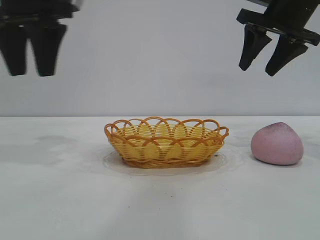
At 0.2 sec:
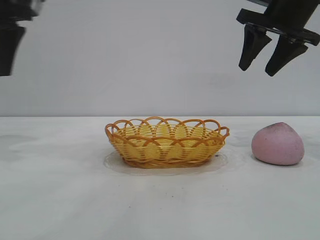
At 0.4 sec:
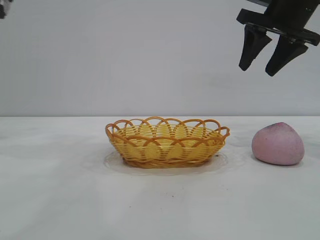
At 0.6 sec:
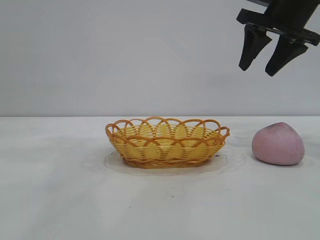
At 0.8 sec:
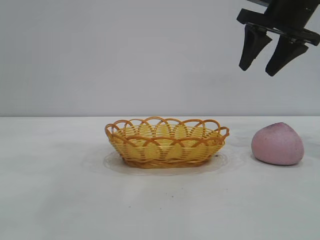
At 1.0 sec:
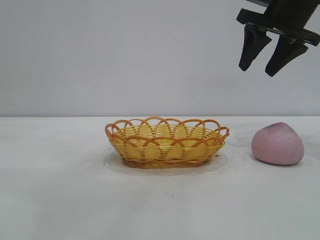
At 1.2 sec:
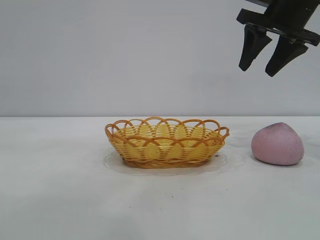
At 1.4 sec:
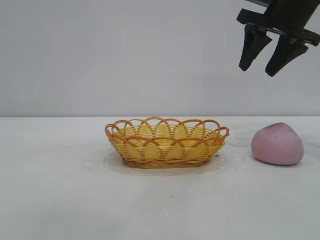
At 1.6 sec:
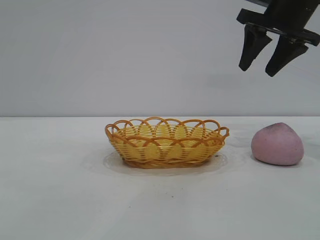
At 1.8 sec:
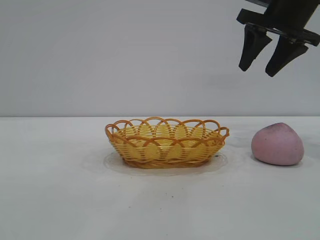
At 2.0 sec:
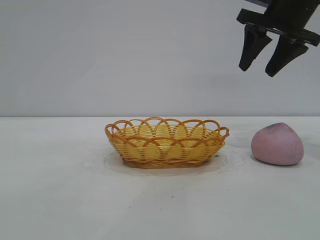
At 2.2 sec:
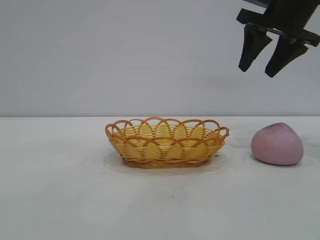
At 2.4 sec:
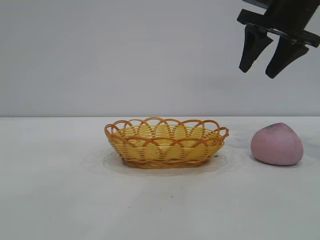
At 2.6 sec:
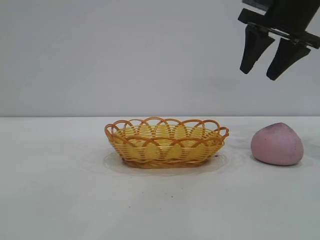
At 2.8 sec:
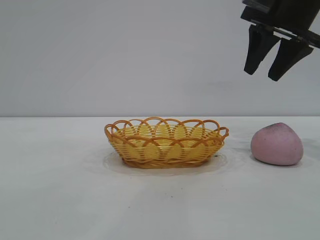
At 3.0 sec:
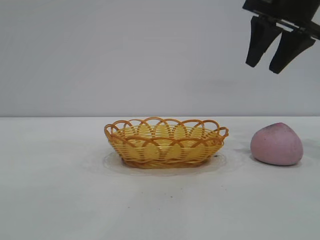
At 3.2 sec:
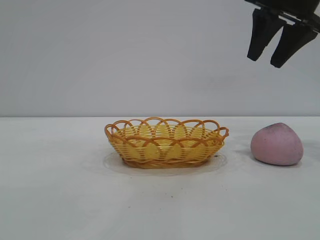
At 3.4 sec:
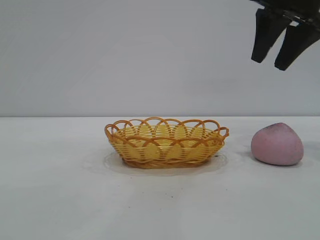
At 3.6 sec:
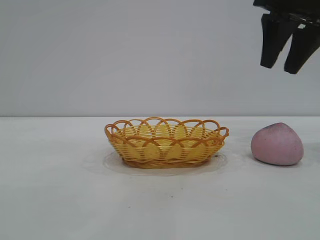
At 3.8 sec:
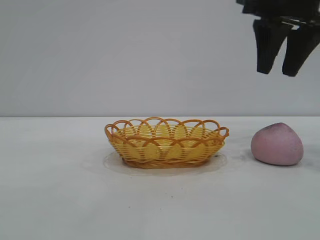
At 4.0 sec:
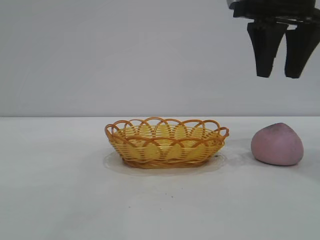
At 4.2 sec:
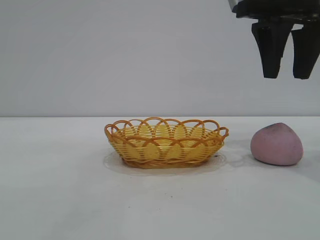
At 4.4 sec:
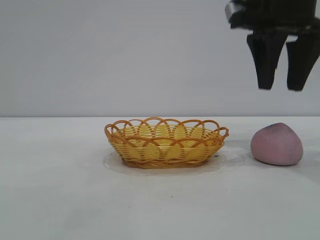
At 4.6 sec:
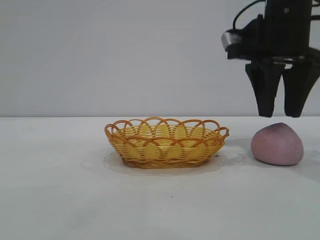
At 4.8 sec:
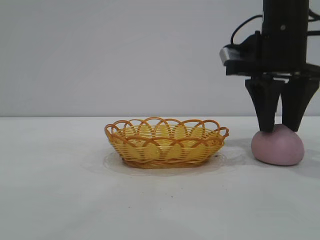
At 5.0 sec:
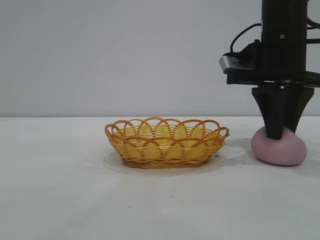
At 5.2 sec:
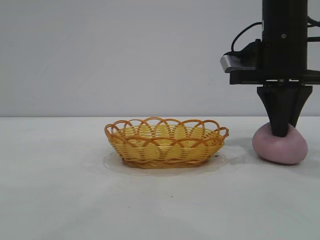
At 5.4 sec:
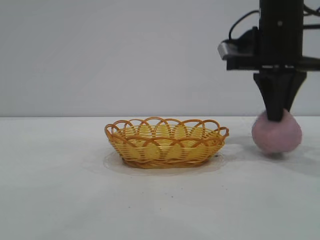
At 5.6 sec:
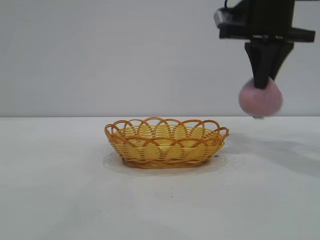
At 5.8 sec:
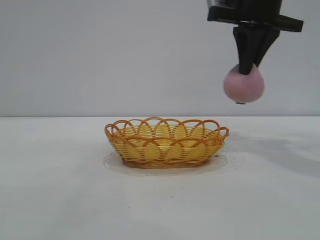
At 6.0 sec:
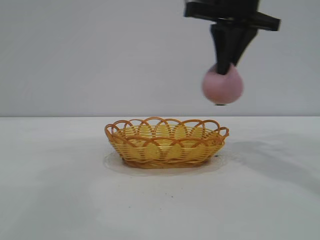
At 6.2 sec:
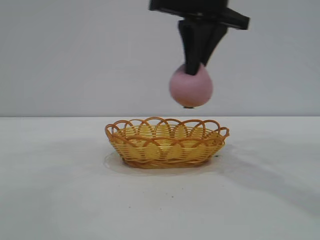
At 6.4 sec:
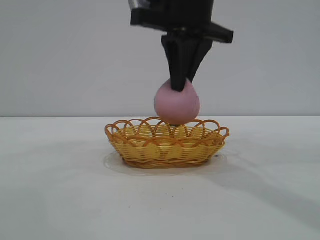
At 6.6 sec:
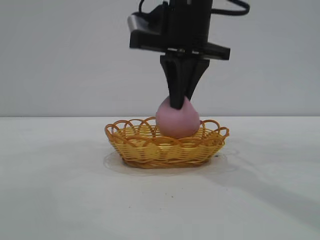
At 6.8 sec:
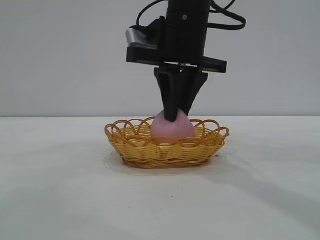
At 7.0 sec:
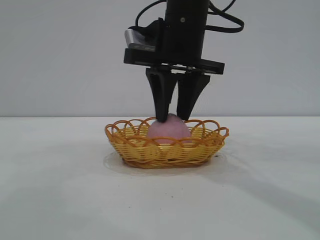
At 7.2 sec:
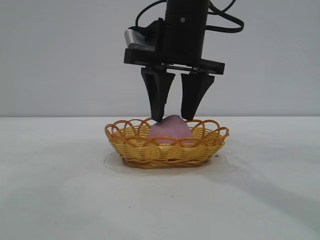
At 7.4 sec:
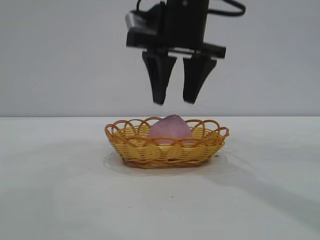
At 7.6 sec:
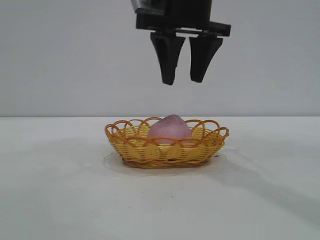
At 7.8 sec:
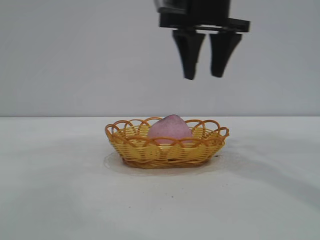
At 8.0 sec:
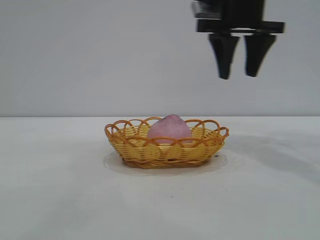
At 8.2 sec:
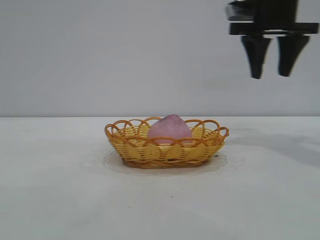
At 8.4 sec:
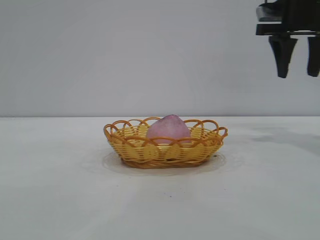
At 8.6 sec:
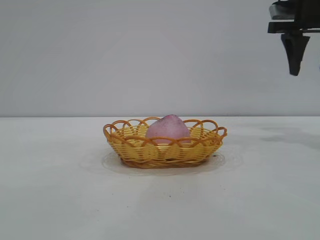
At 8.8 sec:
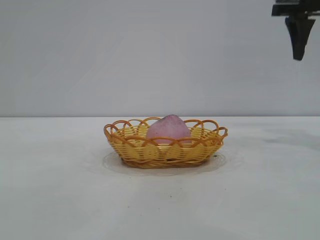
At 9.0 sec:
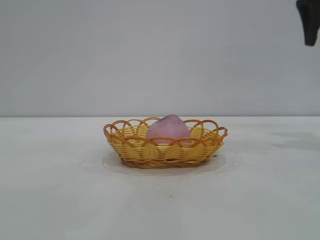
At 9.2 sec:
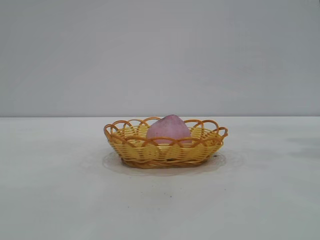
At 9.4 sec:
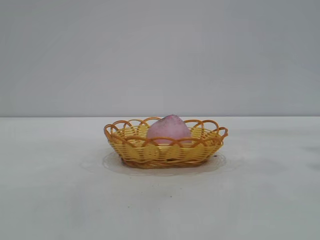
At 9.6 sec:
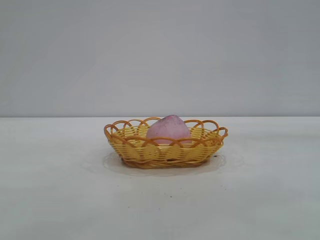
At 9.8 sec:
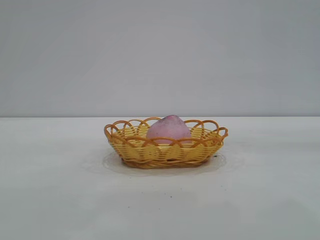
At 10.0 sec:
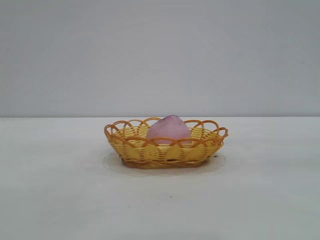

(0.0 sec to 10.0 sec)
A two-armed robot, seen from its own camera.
Task of the whole recording: pick up the peach and put it into the basket.
Step, 0.0 sec - 5.4 sec: Pick up the peach.
Step, 5.6 sec - 7.4 sec: place the peach into the basket.

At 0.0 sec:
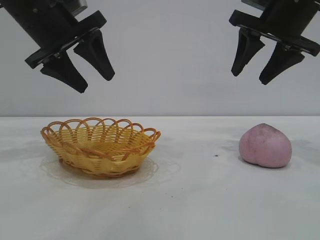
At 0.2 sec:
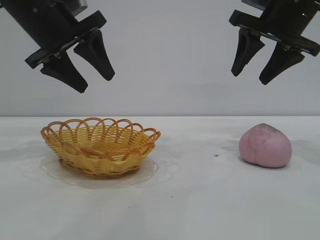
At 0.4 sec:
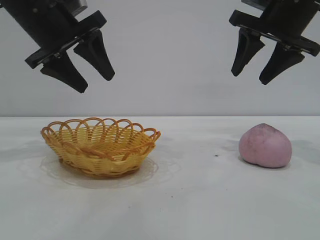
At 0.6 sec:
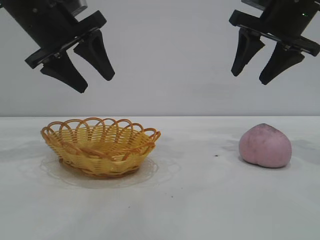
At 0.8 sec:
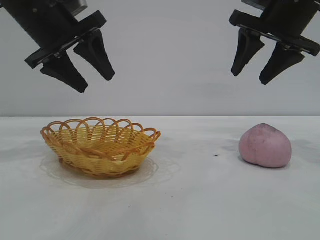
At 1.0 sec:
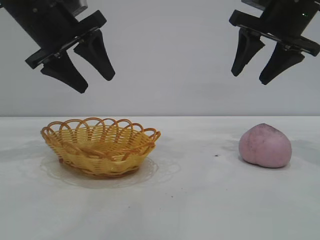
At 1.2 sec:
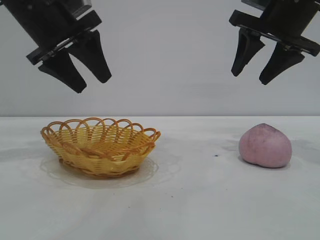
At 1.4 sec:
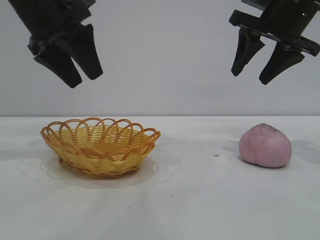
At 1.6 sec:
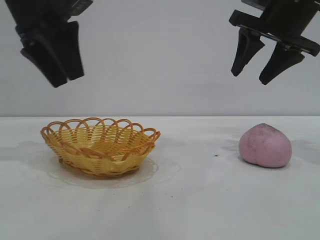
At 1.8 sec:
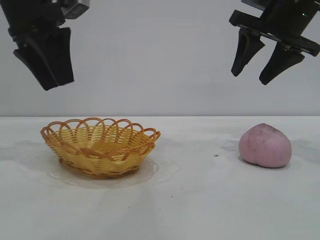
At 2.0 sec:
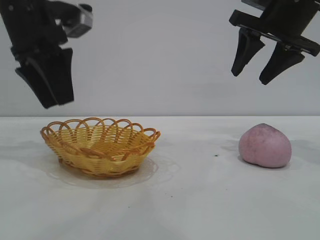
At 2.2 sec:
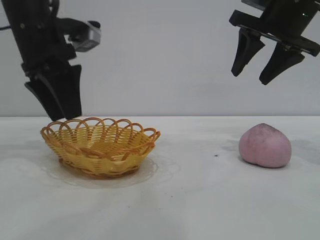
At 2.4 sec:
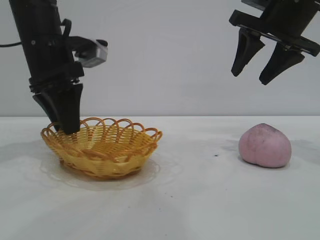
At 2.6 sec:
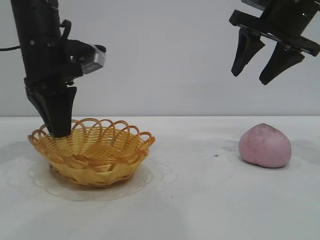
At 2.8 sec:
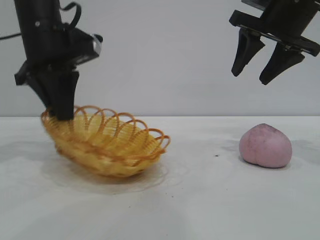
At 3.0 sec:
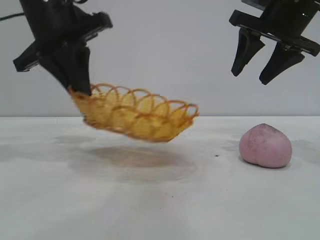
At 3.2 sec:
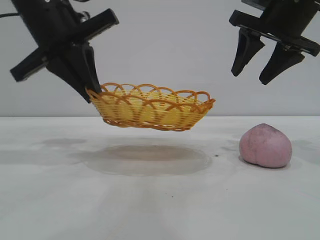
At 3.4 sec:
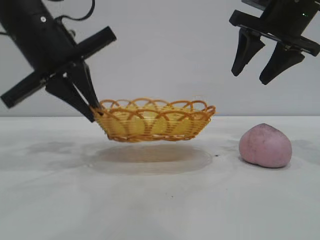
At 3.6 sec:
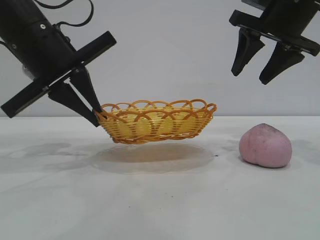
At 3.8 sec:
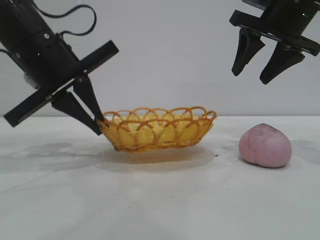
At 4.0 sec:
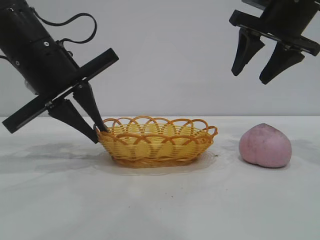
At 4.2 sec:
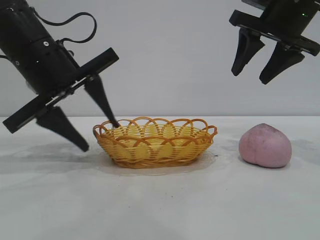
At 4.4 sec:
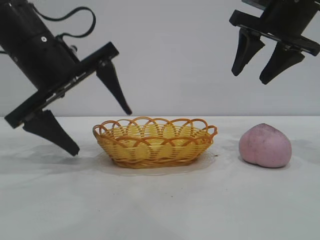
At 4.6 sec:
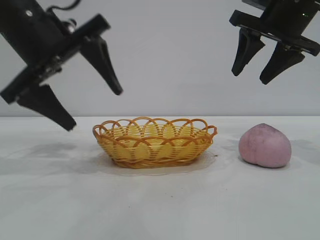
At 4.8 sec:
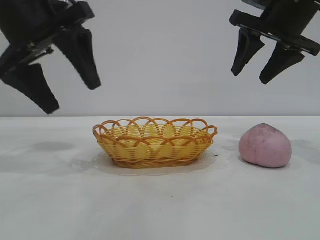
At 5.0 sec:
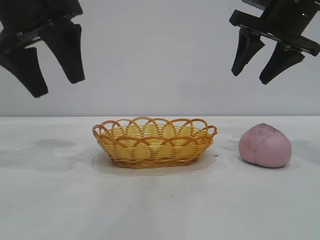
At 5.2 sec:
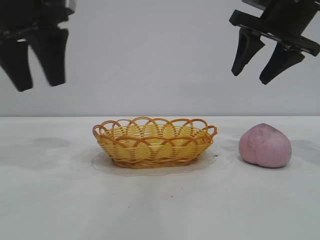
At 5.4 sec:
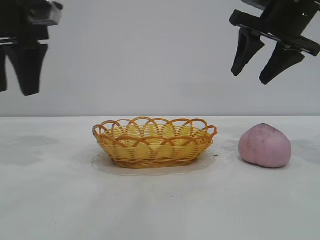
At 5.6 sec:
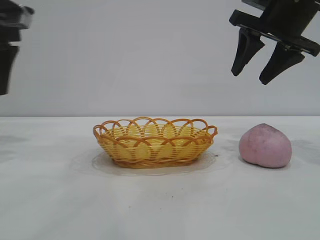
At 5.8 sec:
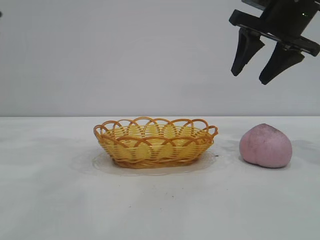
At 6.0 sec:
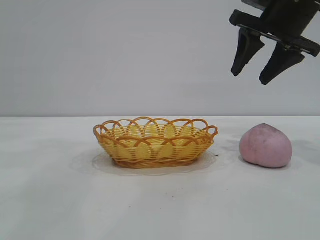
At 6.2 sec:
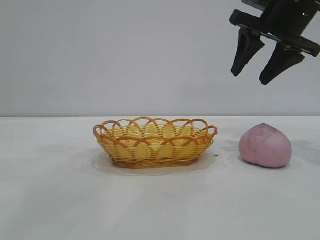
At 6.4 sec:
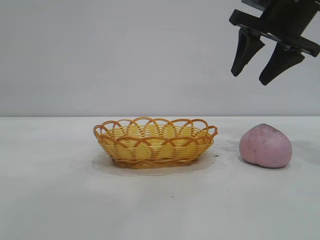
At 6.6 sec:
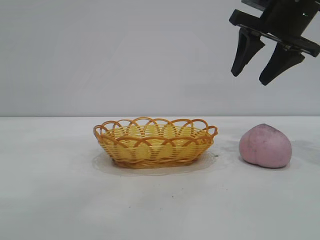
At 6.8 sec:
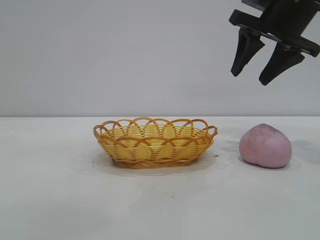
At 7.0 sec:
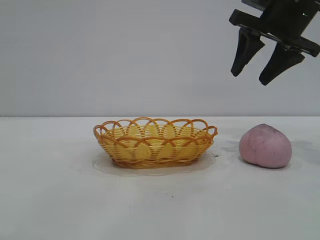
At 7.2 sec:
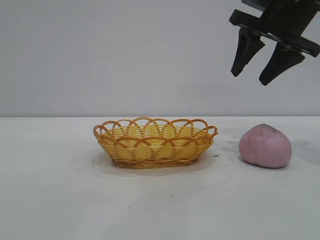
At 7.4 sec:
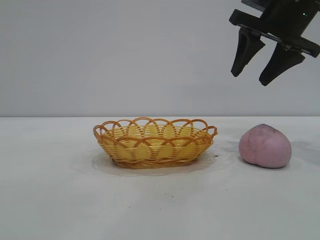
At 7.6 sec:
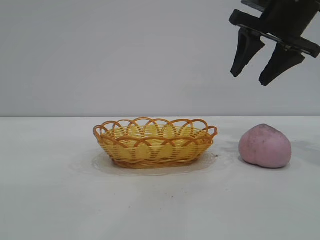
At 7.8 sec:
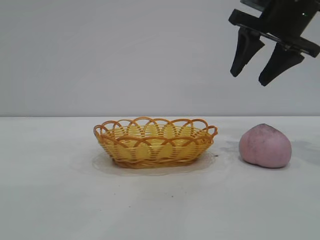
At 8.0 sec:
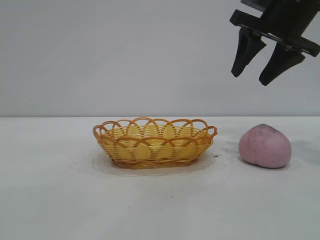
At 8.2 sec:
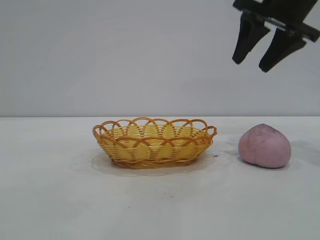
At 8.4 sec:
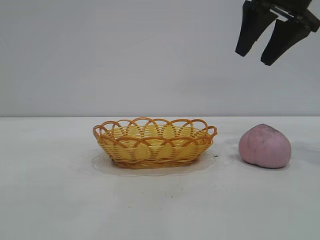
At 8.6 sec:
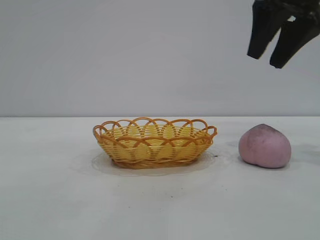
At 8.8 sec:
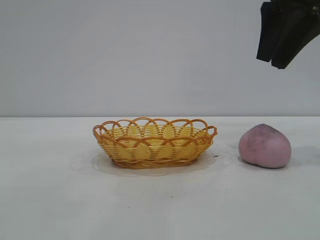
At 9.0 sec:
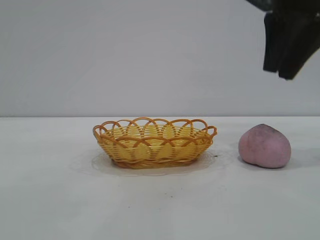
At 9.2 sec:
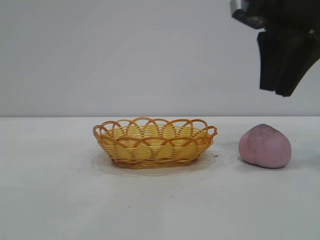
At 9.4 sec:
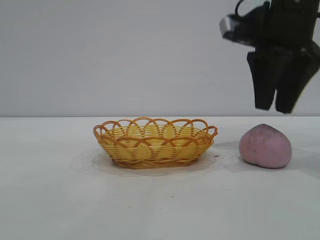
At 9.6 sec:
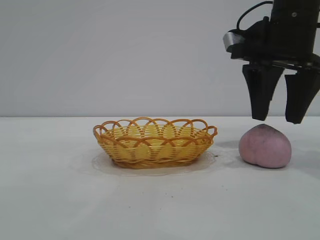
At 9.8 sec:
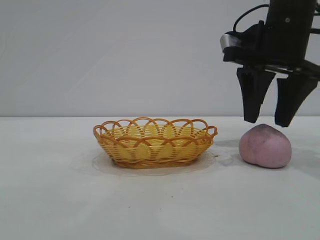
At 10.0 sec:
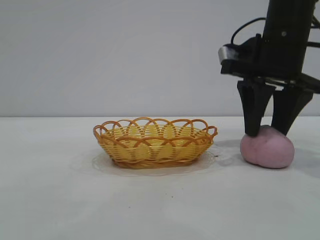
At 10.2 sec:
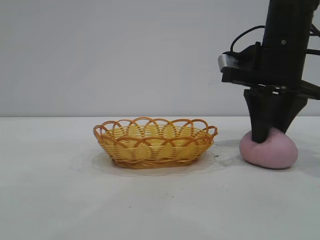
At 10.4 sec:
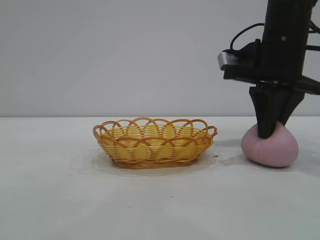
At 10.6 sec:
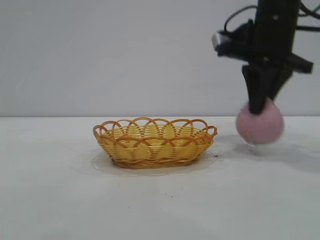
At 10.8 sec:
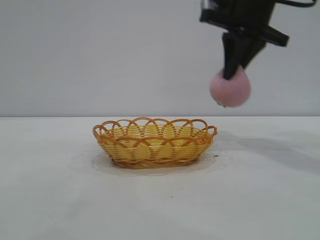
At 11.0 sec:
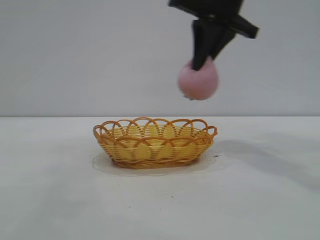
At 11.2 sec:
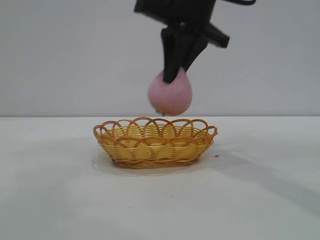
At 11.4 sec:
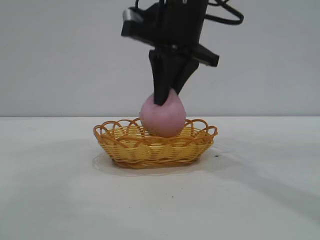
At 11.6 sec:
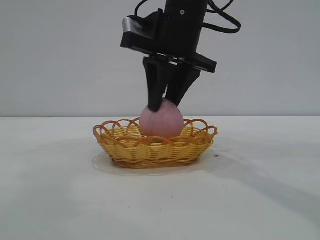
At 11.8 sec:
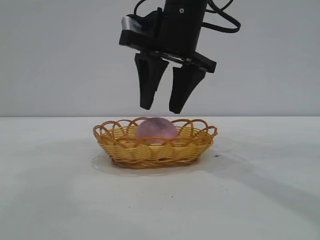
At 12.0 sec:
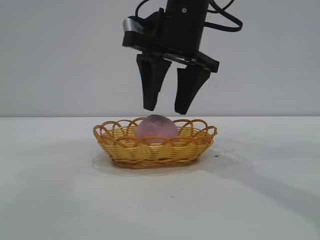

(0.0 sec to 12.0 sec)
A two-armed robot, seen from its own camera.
Task of the whole recording: pick up the peach and put it into the basket.
Step, 0.0 sec - 5.0 sec: Move the basket to the center of view.
Step, 5.2 sec - 10.6 sec: Pick up the peach.
